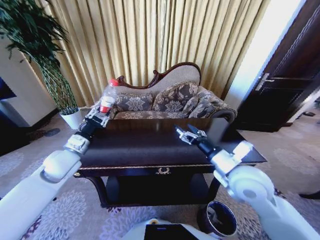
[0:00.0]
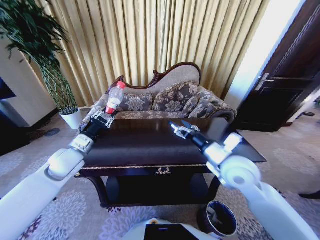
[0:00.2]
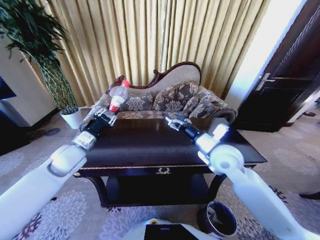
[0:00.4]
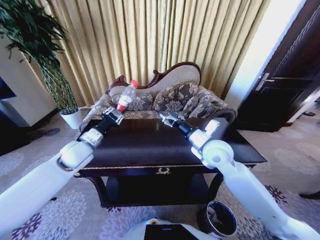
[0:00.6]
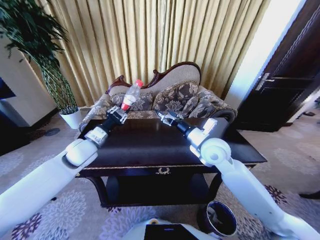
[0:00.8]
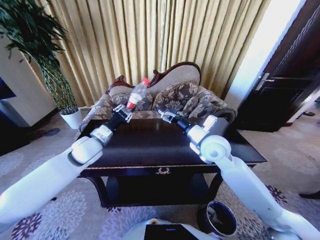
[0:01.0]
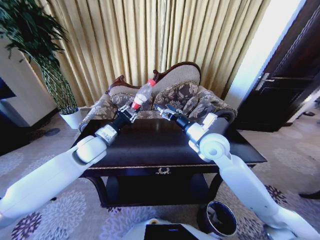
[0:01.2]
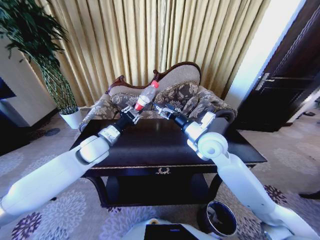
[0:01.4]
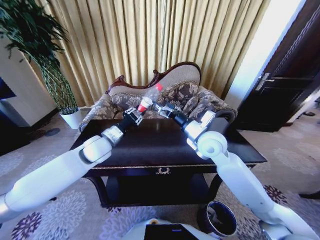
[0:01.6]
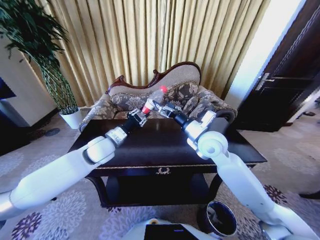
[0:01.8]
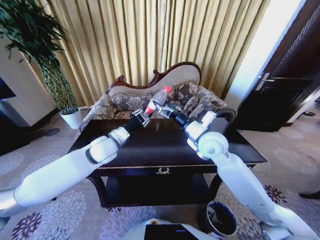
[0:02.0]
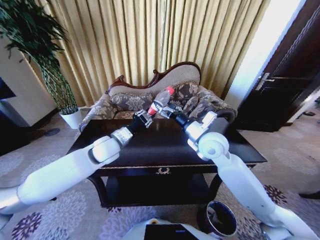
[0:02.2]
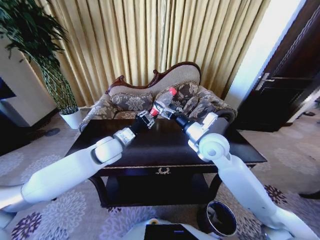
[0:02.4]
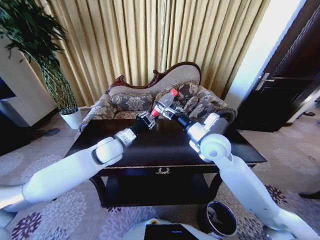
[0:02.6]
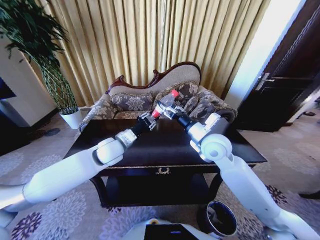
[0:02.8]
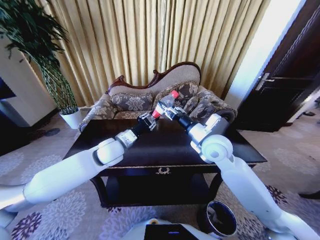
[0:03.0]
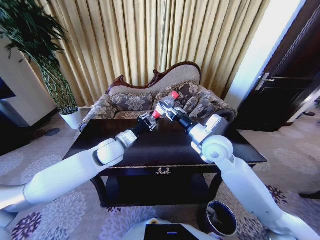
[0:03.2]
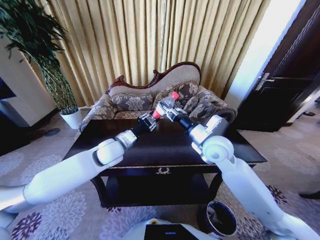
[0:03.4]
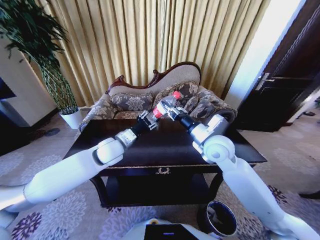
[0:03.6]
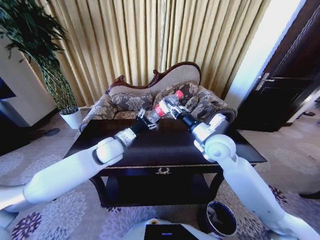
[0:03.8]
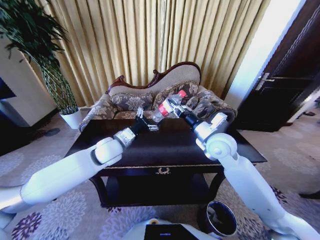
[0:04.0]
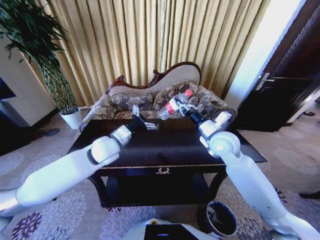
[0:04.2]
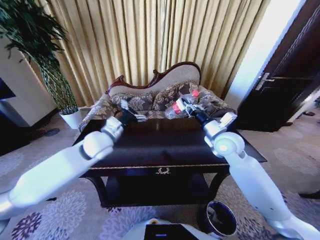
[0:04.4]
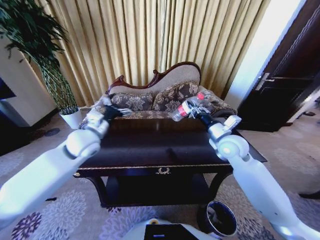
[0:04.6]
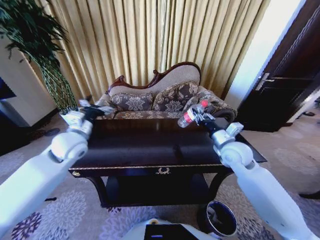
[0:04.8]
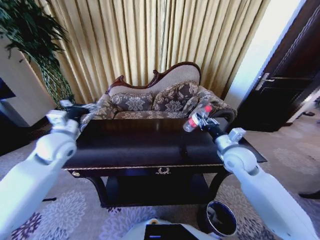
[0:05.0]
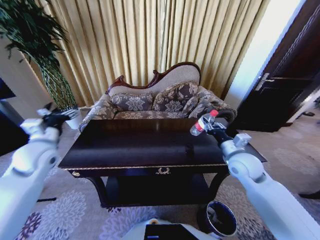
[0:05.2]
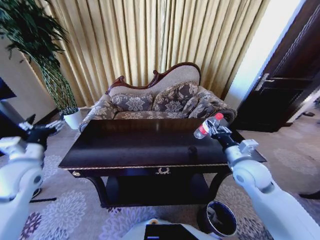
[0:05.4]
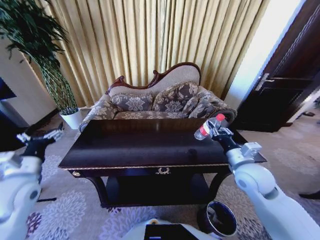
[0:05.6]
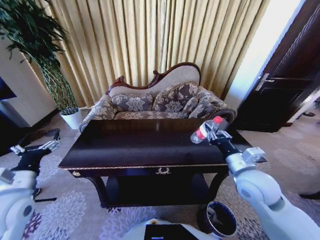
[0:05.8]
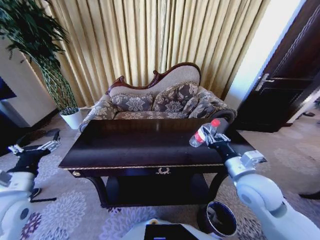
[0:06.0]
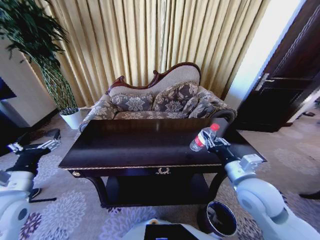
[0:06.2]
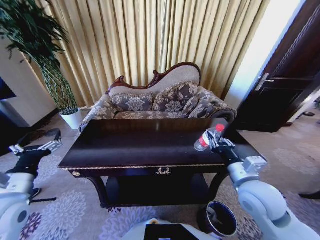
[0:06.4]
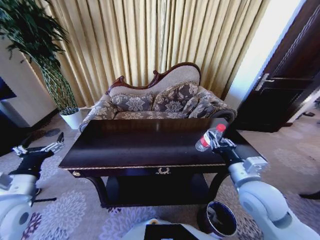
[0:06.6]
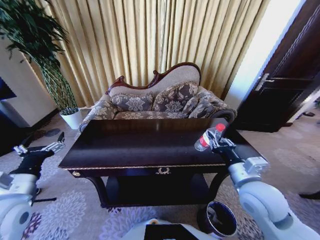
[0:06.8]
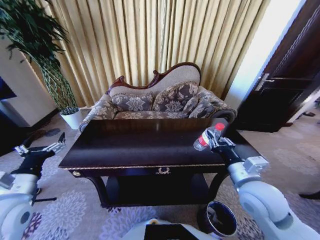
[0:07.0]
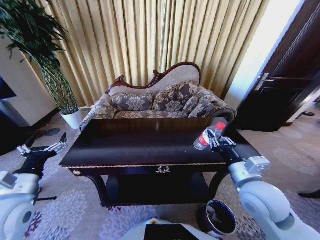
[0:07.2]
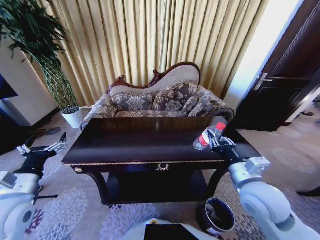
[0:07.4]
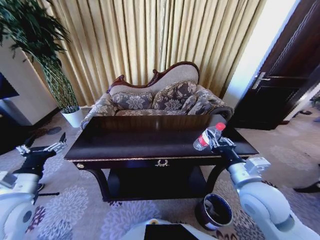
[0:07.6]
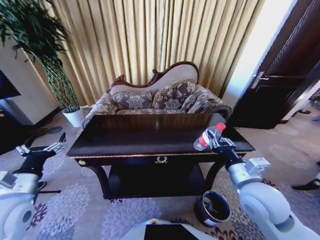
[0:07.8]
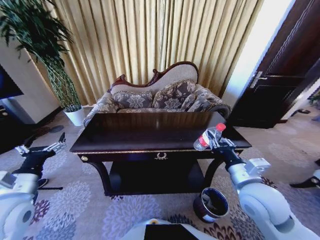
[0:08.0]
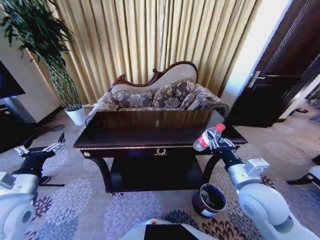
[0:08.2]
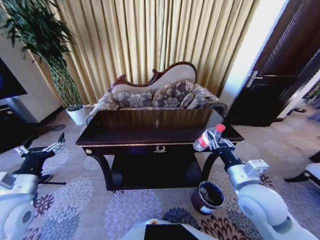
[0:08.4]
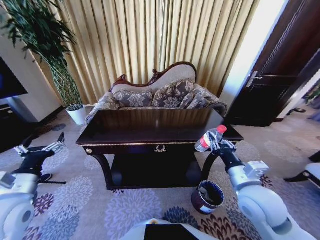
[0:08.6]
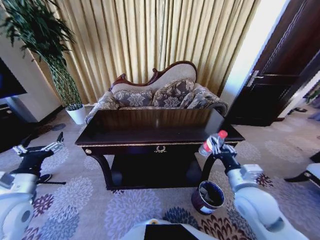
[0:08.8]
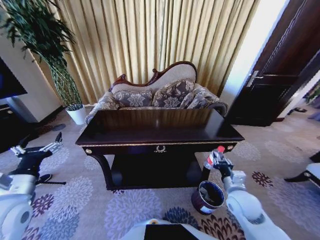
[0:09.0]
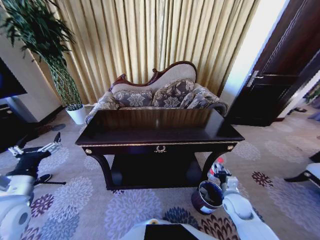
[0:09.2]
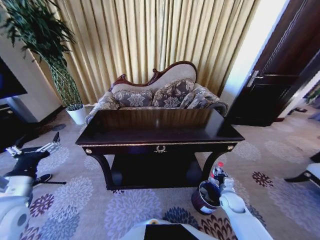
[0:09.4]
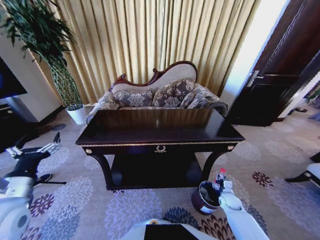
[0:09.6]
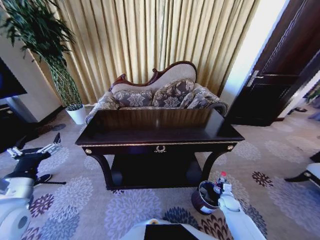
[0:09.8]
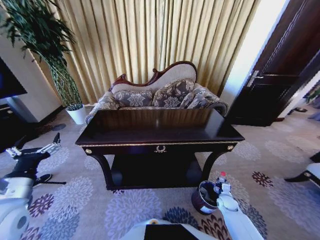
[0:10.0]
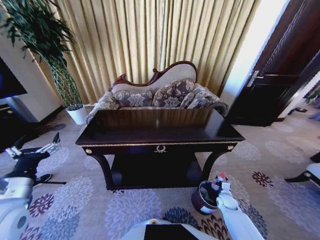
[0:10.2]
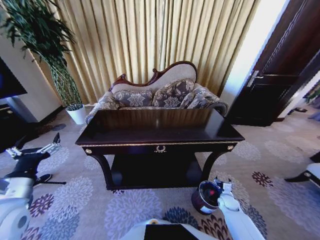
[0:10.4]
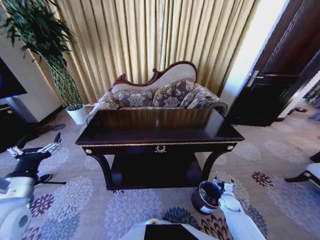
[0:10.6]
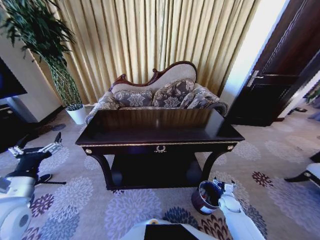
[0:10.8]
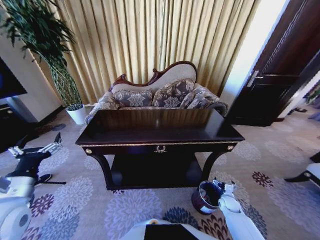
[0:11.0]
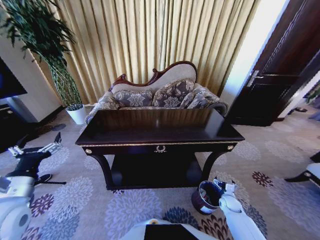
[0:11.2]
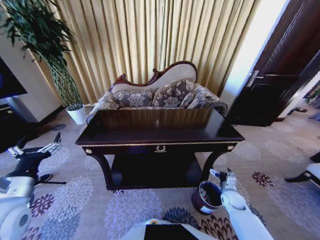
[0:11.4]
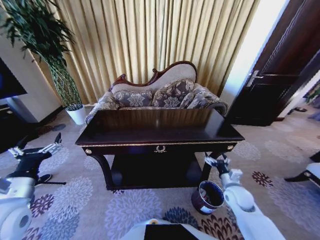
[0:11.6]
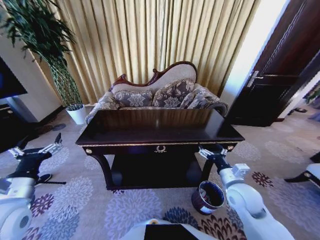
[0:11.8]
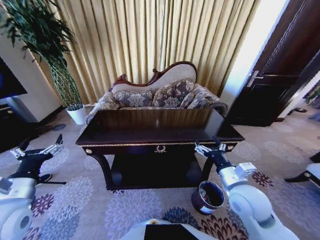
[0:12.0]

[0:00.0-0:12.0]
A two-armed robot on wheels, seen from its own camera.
Task of the whole recording: Move to the front of the table and place the trash on the table into the trash bin.
0:00.0 to 0:01.6: The left gripper goes some 10 cm to the right and forward. The right gripper heads forward and to the left, covering roughly 15 cm.
0:01.6 to 0:03.0: The right gripper closes.
0:03.0 to 0:04.4: The right gripper shifts approximately 5 cm to the right; the left gripper opens.
0:04.4 to 0:06.0: The left gripper shifts about 25 cm backward and to the left; the right gripper heads backward, covering about 15 cm.
0:07.6 to 0:09.0: The right gripper shifts roughly 15 cm downward.
0:09.0 to 0:10.4: The right gripper is displaced downward and to the right by approximately 25 cm, and opens up.
0:10.4 to 0:12.0: The right gripper travels upward and to the left by roughly 35 cm.

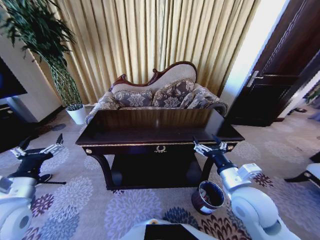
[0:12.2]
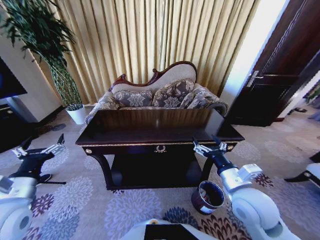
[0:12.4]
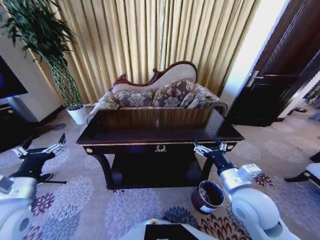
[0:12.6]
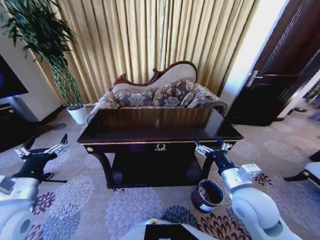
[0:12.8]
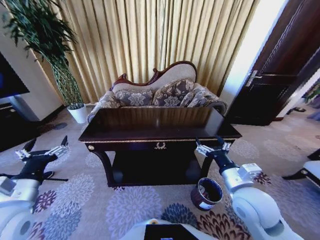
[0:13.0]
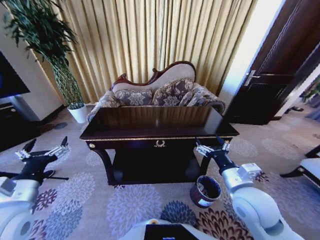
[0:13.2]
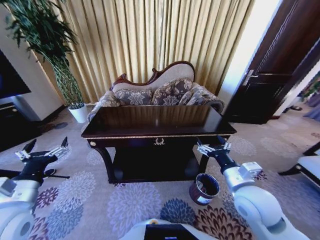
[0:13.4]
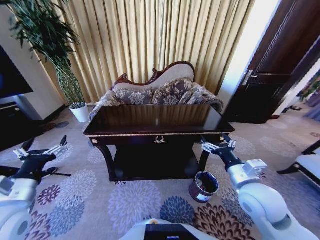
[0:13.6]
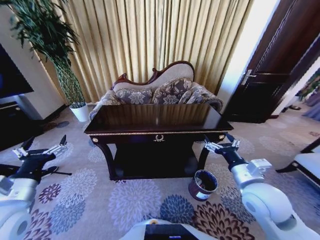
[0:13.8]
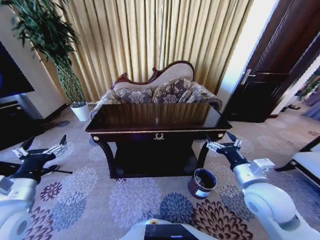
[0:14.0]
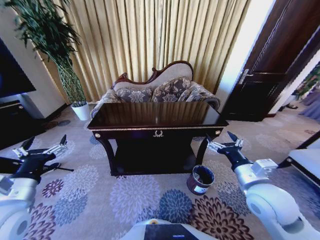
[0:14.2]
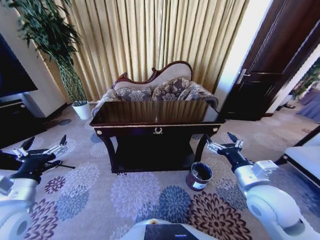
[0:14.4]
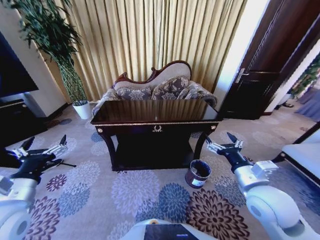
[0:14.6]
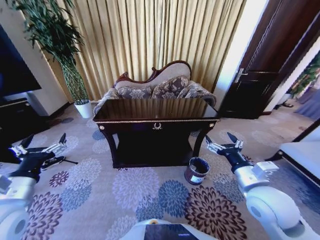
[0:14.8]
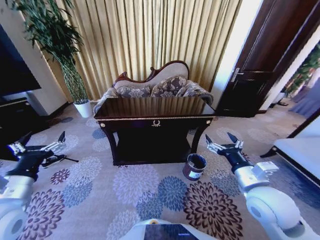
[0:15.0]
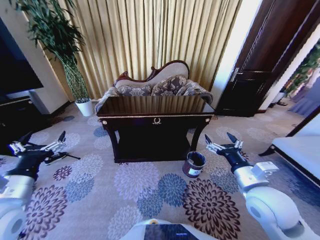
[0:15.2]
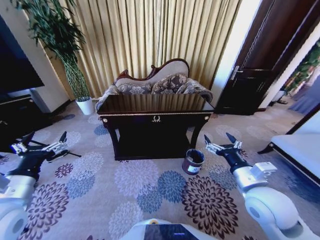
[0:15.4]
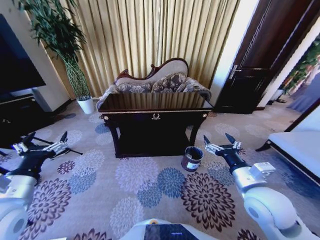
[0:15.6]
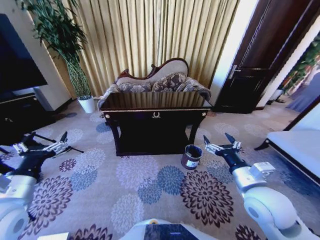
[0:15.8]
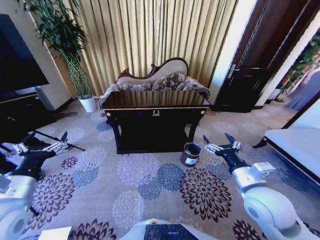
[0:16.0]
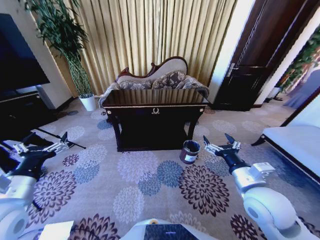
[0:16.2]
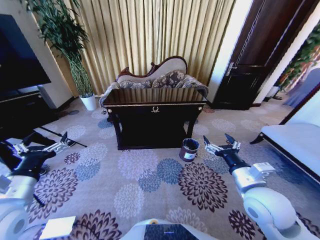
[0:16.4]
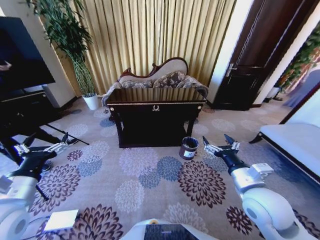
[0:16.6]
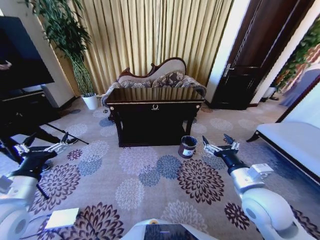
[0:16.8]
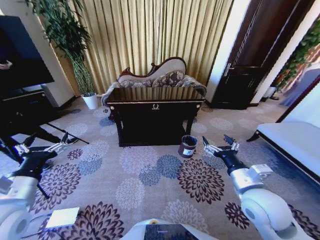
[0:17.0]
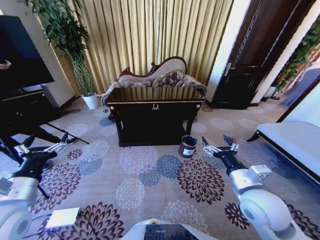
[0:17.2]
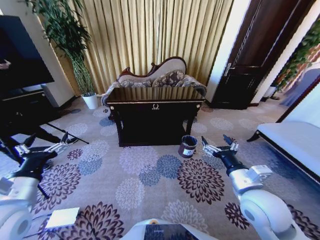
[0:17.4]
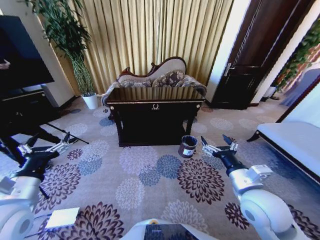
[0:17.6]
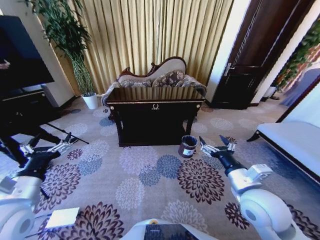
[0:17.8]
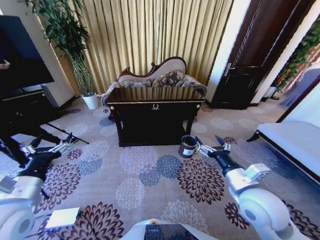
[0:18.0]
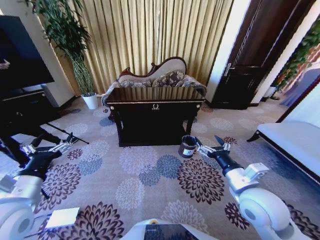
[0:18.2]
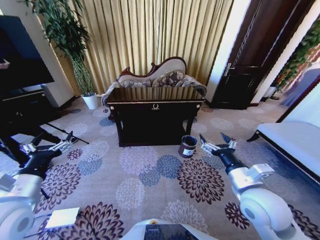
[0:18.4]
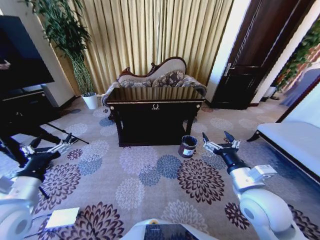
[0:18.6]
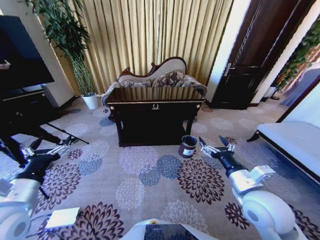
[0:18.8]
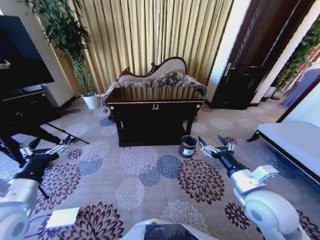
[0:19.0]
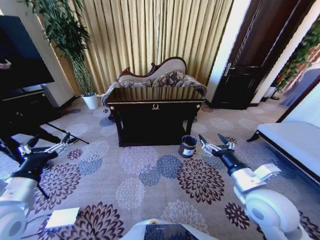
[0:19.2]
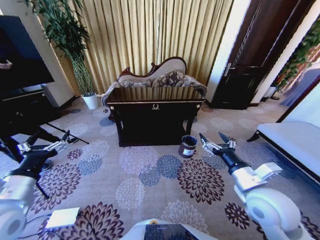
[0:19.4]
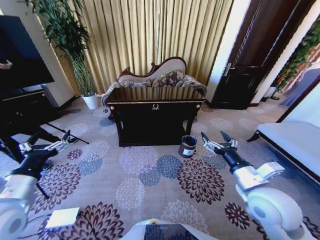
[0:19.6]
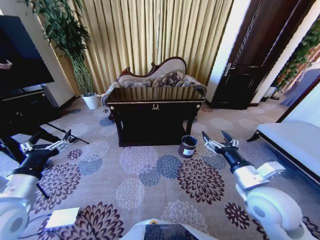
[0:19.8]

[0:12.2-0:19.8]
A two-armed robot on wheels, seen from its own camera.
Task of the whole recording: Move to the front of the table and place the trash on the table into the trash bin.
0:16.8 to 0:19.8: The grippers move only a little.

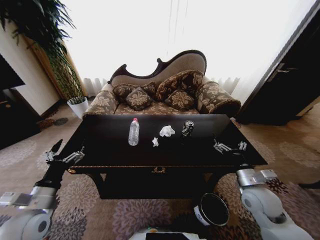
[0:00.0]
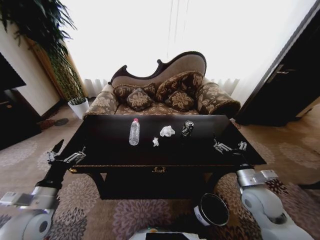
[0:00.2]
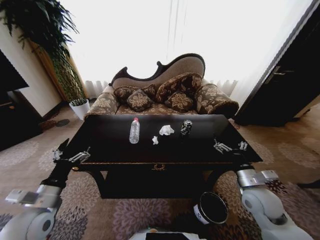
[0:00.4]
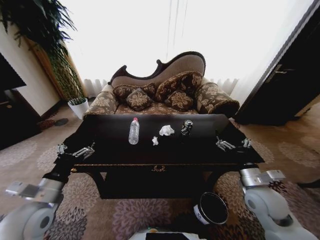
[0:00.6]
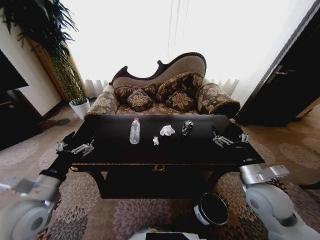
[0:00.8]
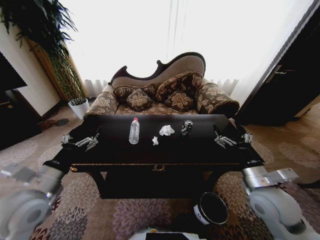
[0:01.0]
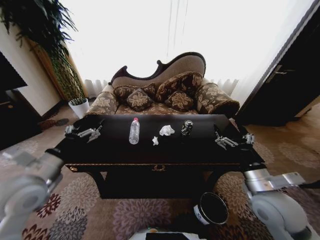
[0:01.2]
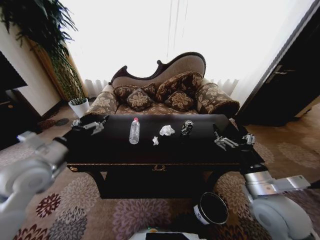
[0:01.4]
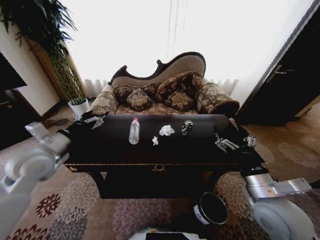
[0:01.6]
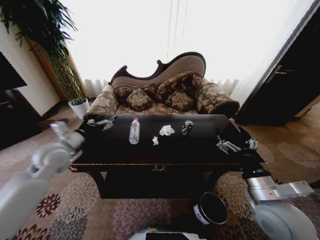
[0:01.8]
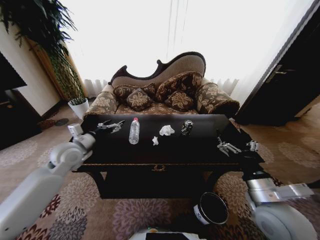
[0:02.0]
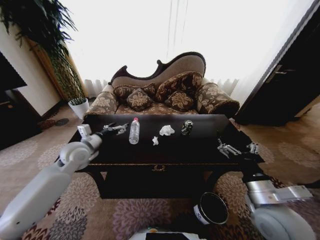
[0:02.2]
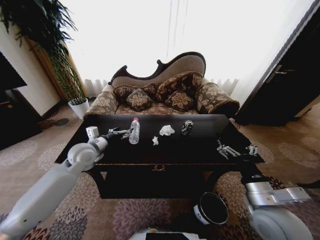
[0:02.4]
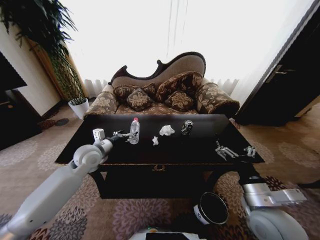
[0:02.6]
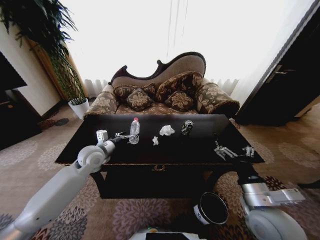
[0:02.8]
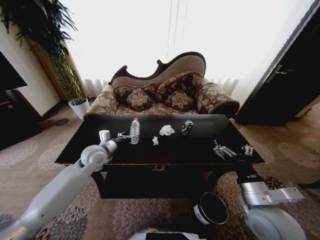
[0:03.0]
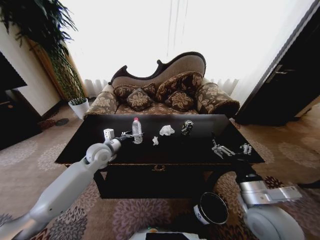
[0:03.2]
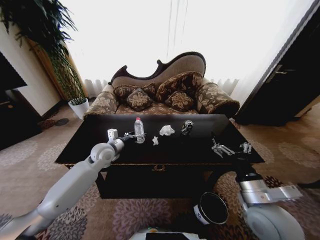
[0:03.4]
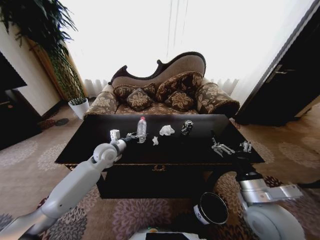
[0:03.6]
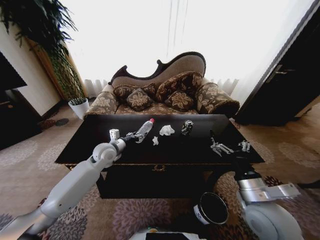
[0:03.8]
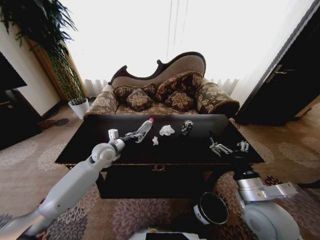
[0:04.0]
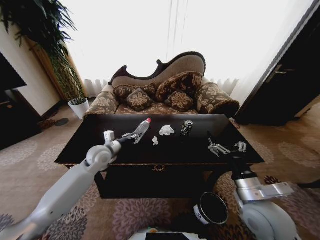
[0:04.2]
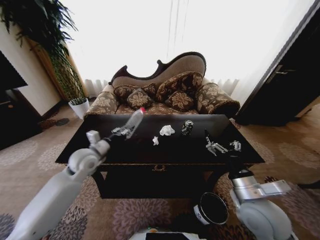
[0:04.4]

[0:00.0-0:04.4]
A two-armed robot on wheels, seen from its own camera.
Task of the whole recording: Move to the front of the table and place the trash on the table into the trash bin.
0:00.0 to 0:01.4: The left gripper is displaced upward and forward by roughly 15 cm. The right gripper moves upward, roughly 10 cm.
0:01.4 to 0:03.0: The left gripper heads forward, to the right and downward, covering about 20 cm.
0:03.0 to 0:04.4: The left gripper closes.
